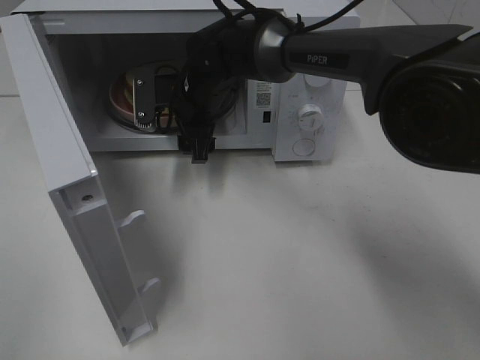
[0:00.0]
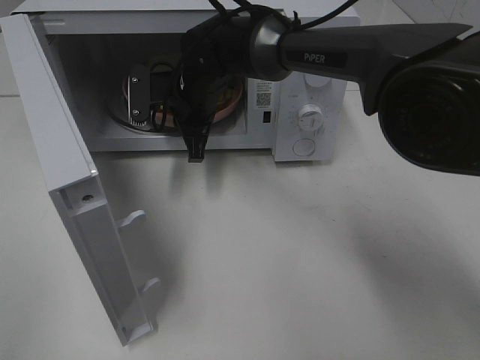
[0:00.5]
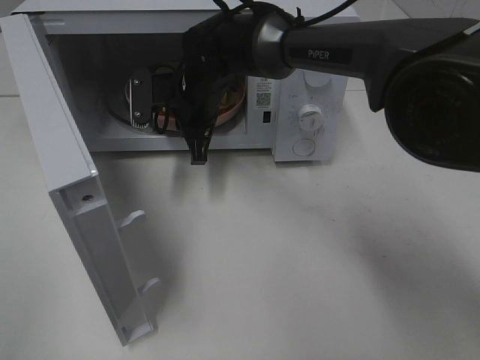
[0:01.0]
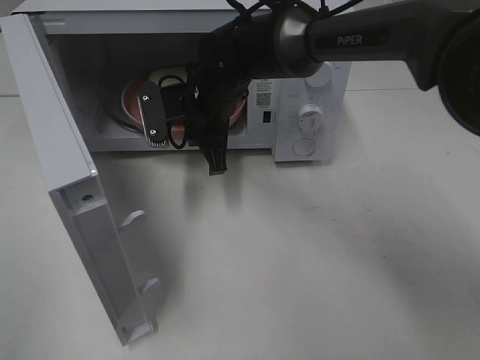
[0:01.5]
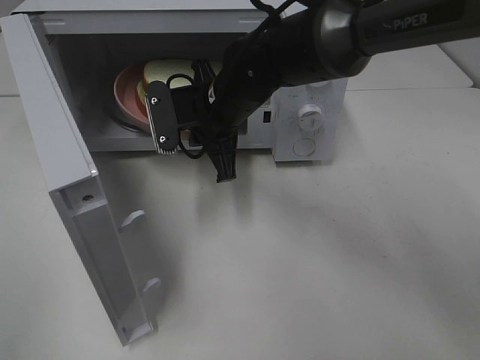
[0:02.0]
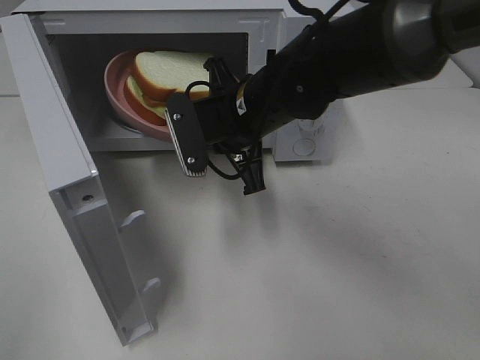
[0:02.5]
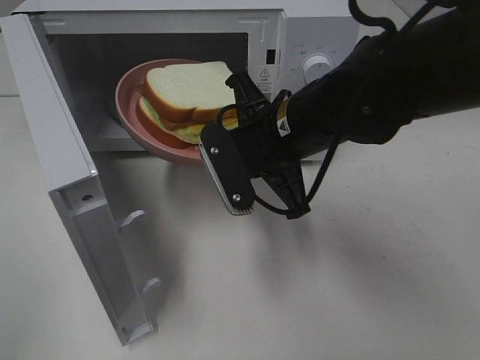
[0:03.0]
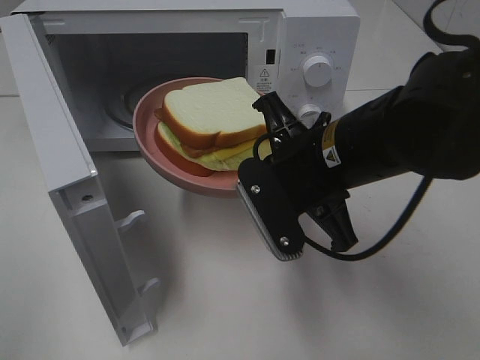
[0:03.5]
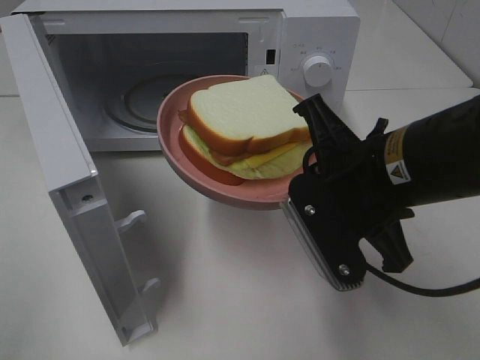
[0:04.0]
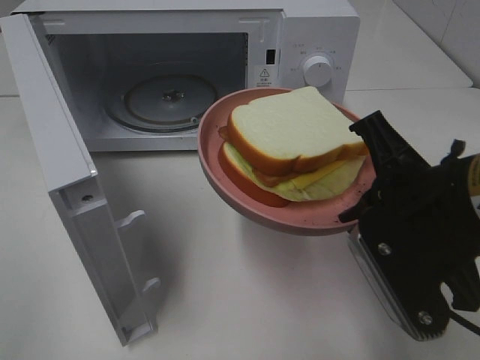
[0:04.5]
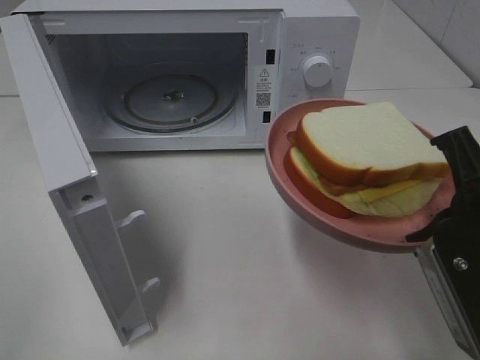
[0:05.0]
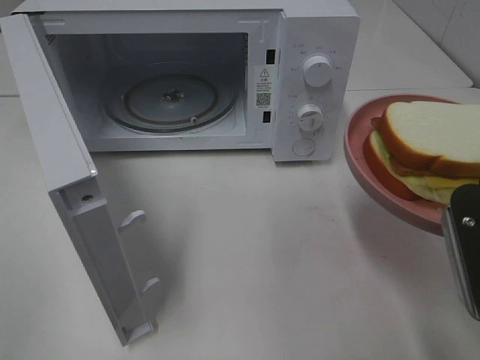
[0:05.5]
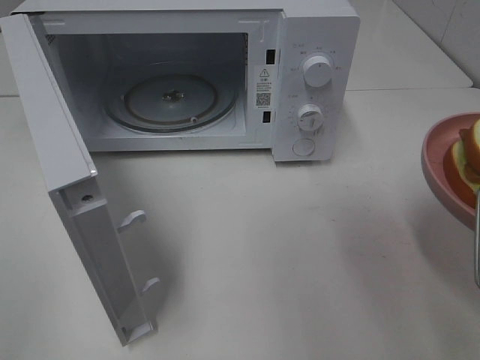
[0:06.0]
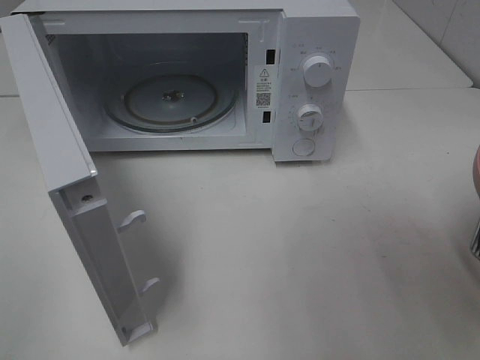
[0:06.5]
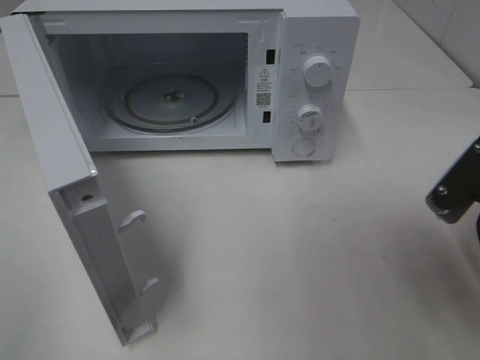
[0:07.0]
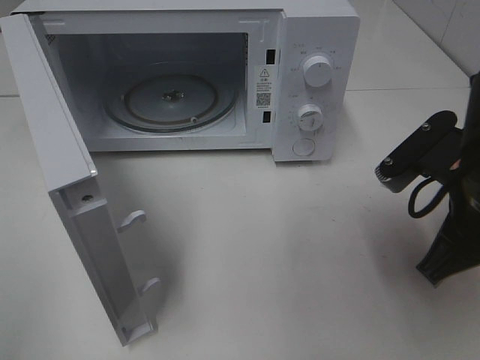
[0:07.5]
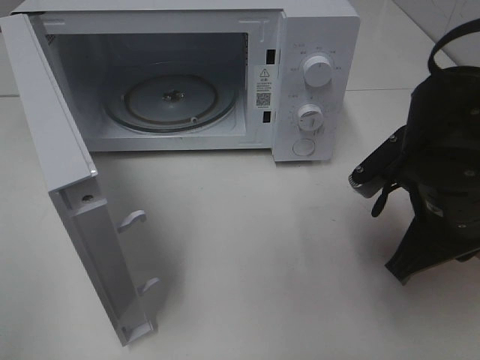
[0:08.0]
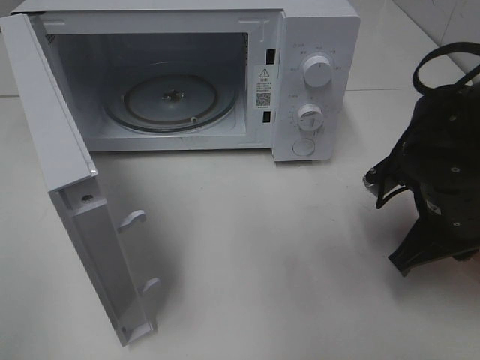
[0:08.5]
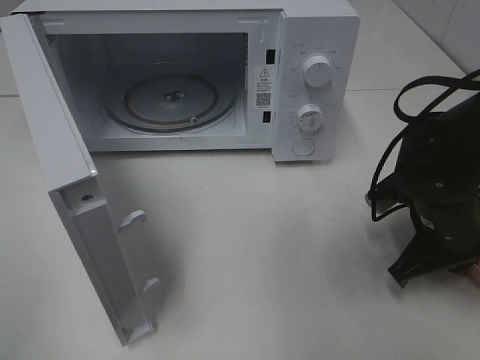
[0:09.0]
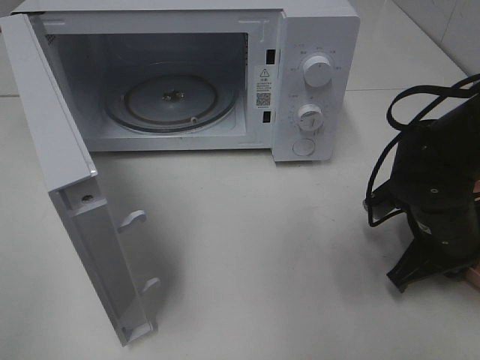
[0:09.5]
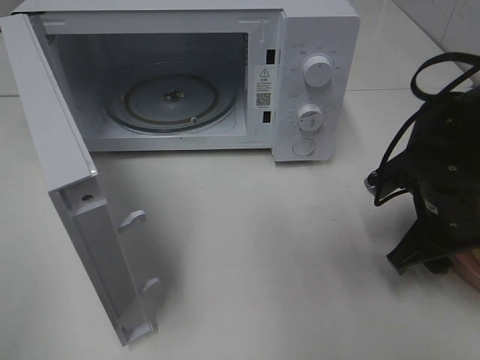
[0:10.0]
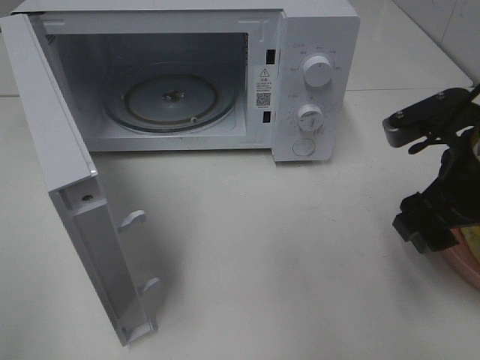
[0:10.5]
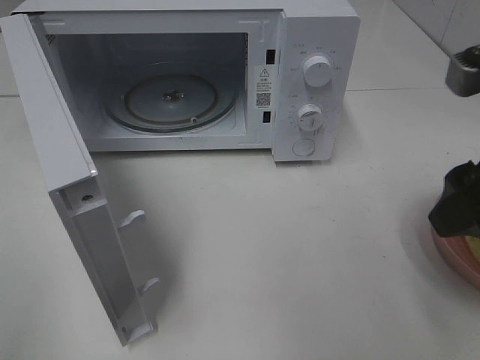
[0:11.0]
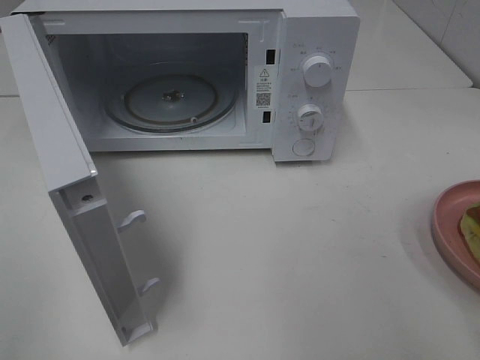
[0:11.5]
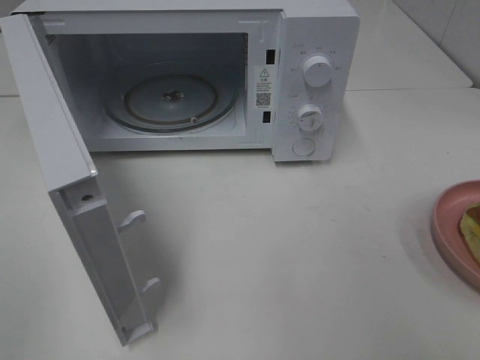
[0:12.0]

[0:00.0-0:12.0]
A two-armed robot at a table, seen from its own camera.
Task of the whole recording: Heat Sandwich.
Step, 0:01.5 to 0:10.0: Right hand: place the plate on the table.
0:00.0 to 0:02.0: The right gripper is displaced backward by about 5 cm, and closes.
0:02.0 to 0:04.0: The right gripper moves backward and to the right, about 20 cm.
0:04.0 to 0:06.0: The right gripper goes approximately 15 cm to the right and backward.
0:06.0 to 0:08.0: The right gripper travels forward, to the left and downward by approximately 10 cm.
0:08.0 to 0:10.0: The right gripper ends up some 5 cm from where it was, and opens.
0:10.0 to 0:12.0: The right gripper goes roughly 25 cm backward and upward.

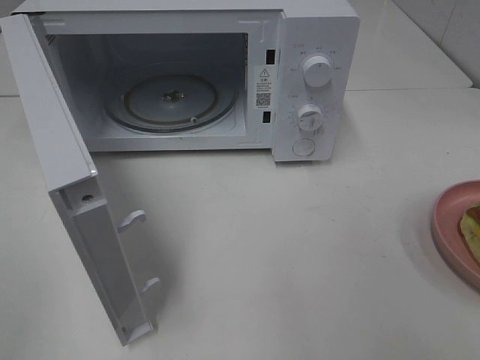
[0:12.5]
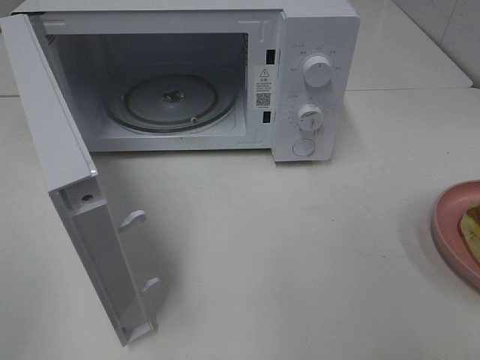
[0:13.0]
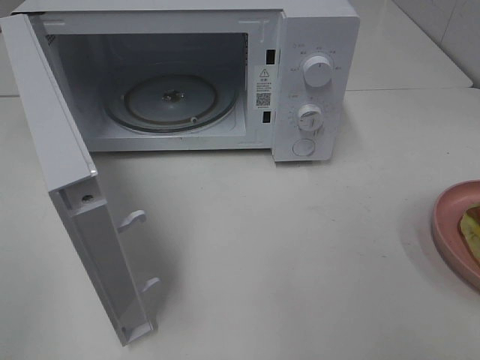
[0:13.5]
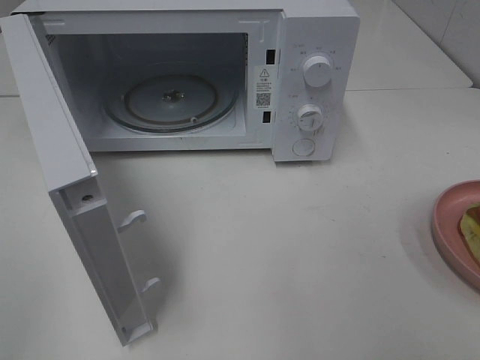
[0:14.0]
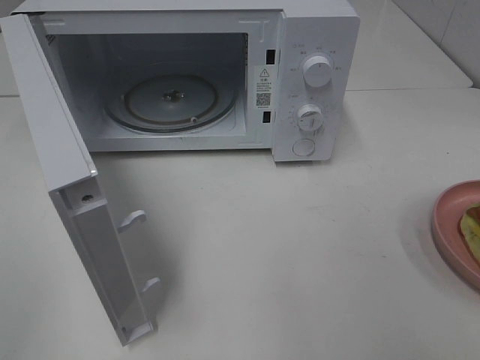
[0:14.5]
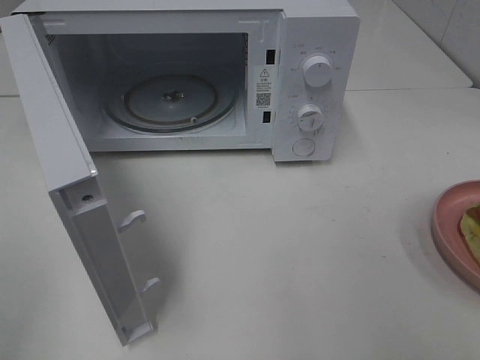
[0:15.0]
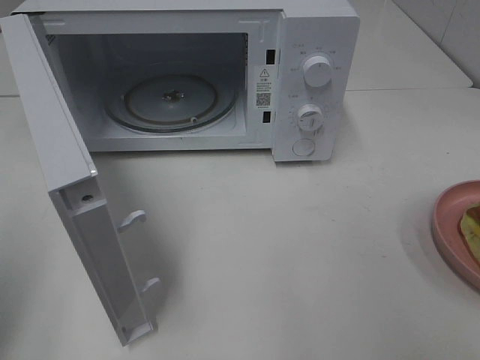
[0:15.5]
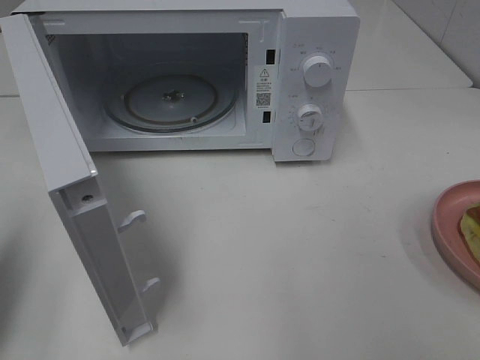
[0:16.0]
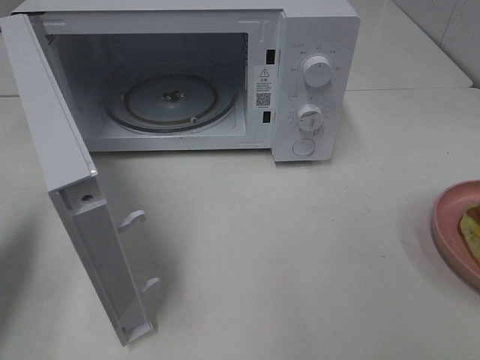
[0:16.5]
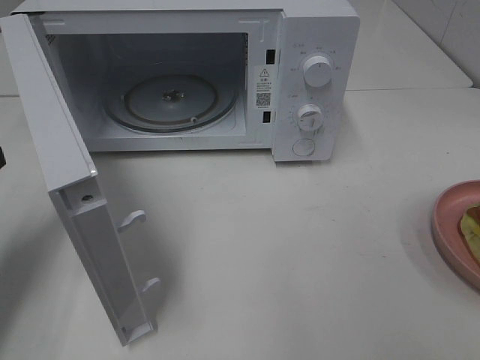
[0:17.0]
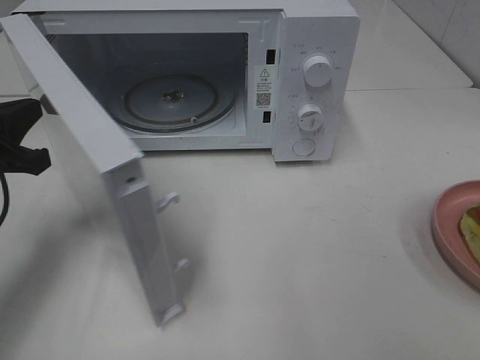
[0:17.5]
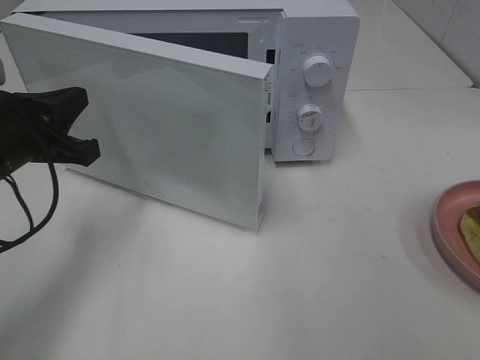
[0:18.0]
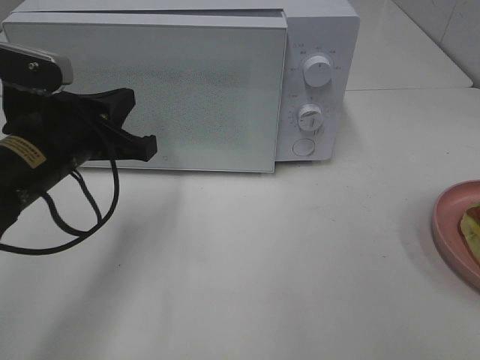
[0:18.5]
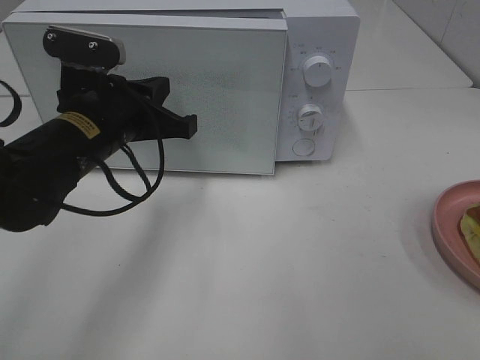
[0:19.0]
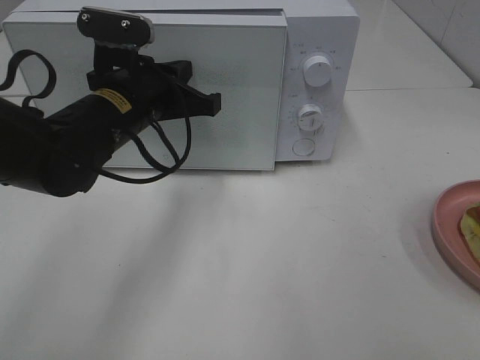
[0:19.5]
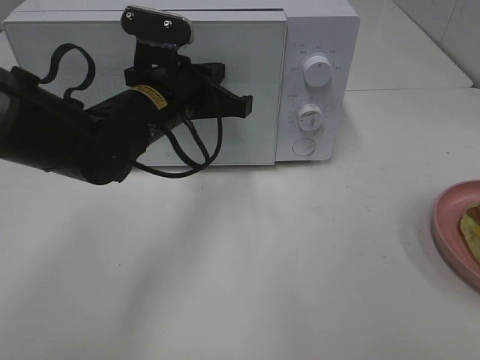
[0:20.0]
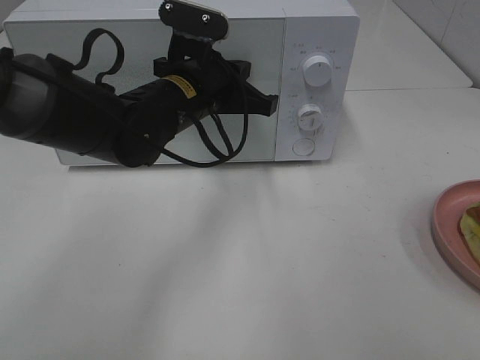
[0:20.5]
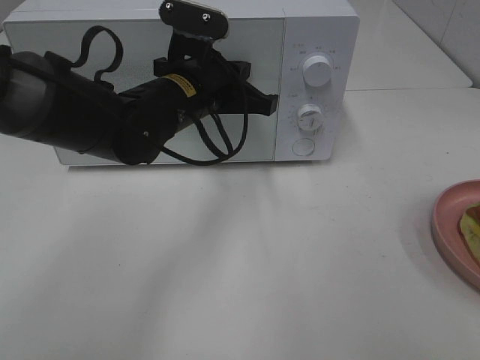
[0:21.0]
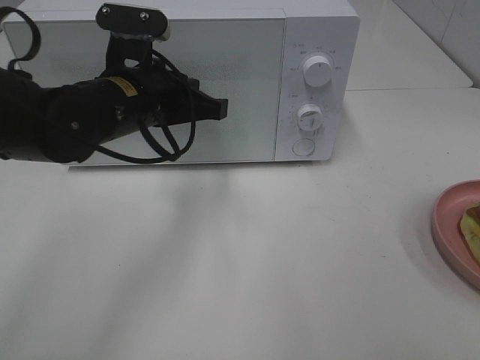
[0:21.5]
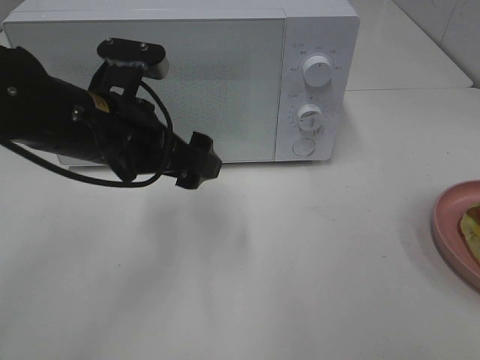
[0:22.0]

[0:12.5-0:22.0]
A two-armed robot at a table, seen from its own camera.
Task of the whole recording: Heat Sandwich.
Step, 0:12.5 to 0:21.5: Left hand: close the microwave door.
0:12.5 to 0:14.5: Both grippers stay put.
0:14.5 to 0:16.5: The left gripper moves forward, some 20 cm, and closes up.
0:16.5 to 0:18.0: The left gripper heads to the right and forward, covering some 10 cm.
0:18.0 to 0:20.0: The left gripper travels to the right and forward by about 15 cm.
0:20.0 to 0:22.0: The left gripper travels backward by some 5 cm, and opens.

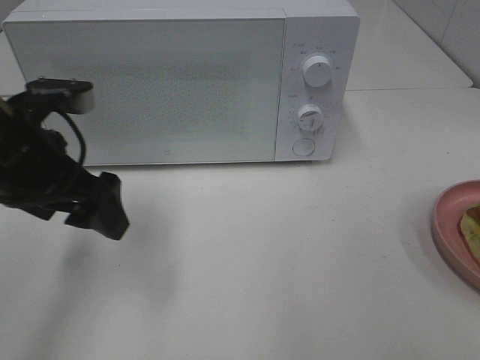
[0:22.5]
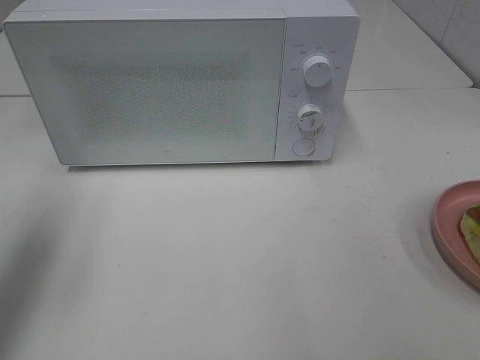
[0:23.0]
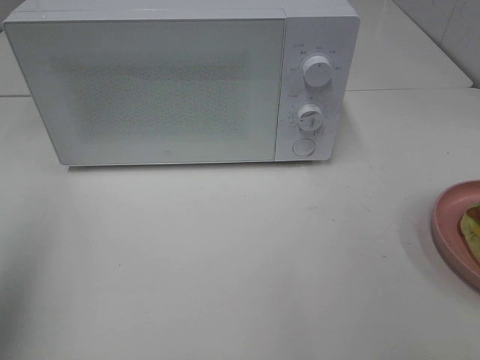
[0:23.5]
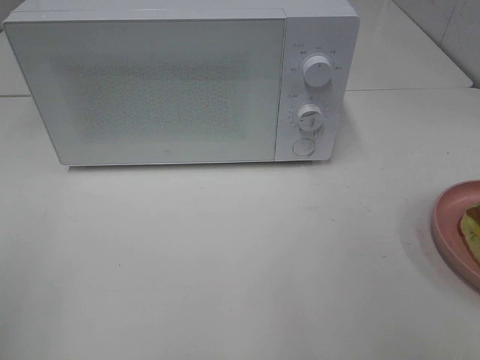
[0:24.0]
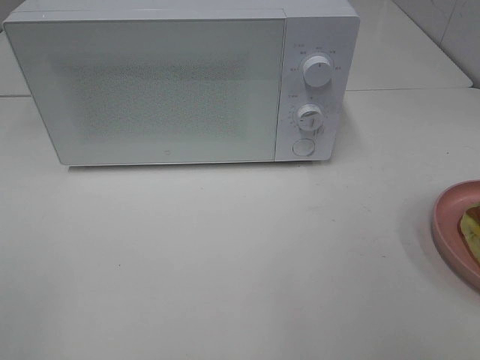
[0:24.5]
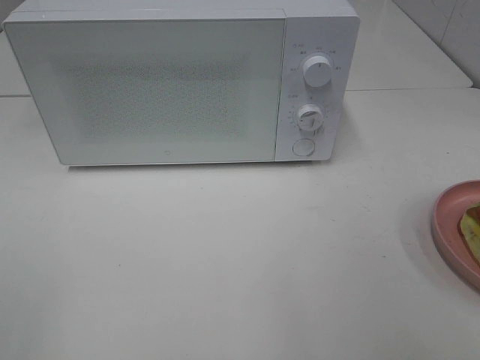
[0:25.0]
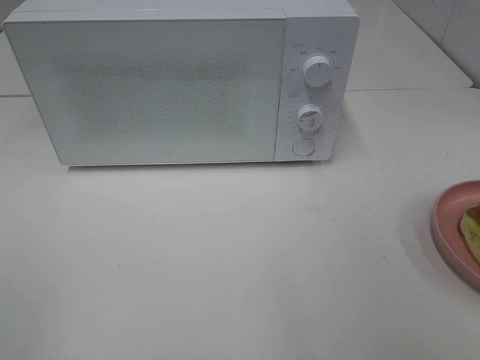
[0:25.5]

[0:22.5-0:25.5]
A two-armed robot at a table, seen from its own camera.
Task of the whole recording: Heat Sandwich.
0:22.5 to 0:24.0: The left gripper goes roughly 25 cm backward and to the left.

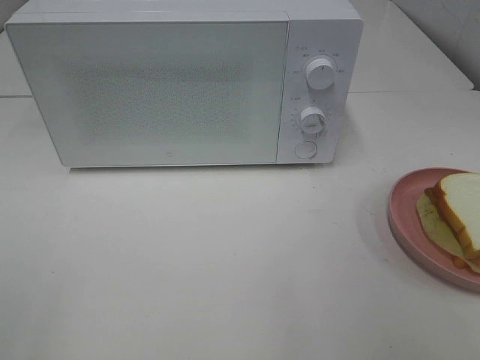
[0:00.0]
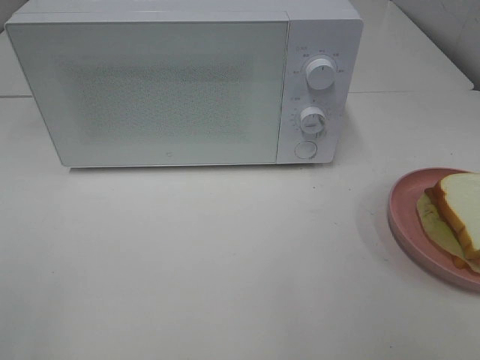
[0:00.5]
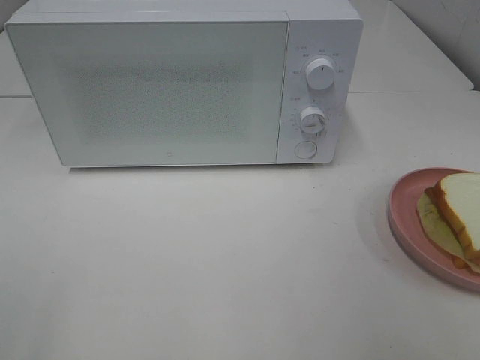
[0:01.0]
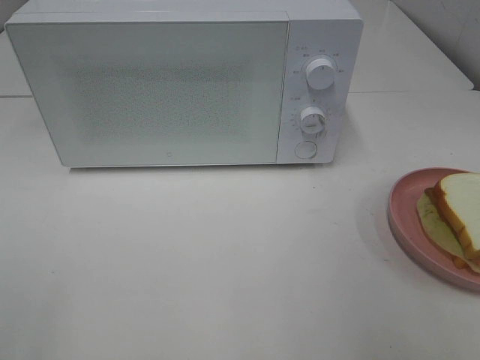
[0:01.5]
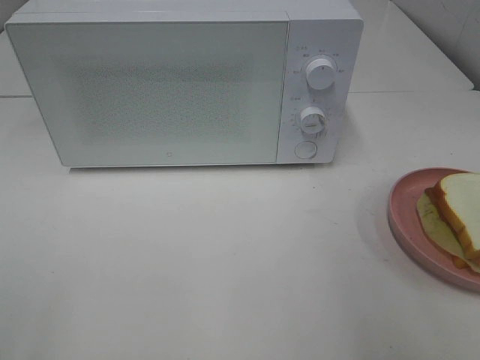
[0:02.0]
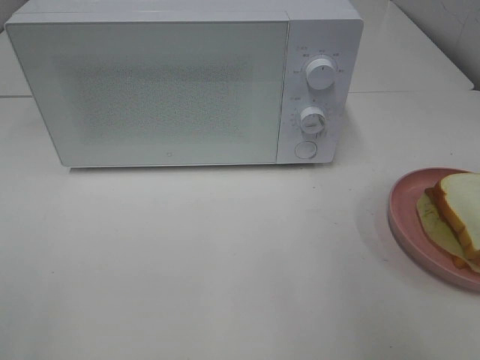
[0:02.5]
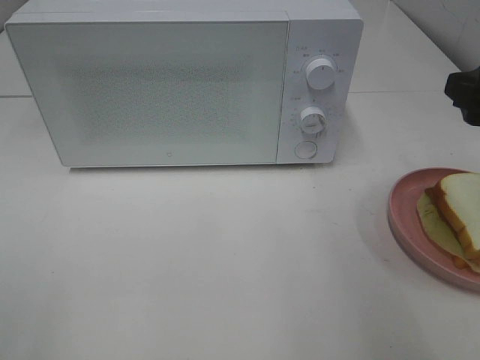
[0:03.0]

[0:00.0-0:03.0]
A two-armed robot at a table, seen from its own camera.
Task of the whole recording: Heat Sandwich.
0:01.5 to 0:03.0: The right gripper travels forward and downward by approximately 15 cm.
